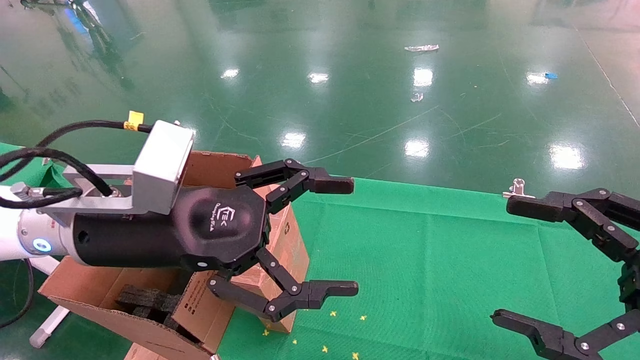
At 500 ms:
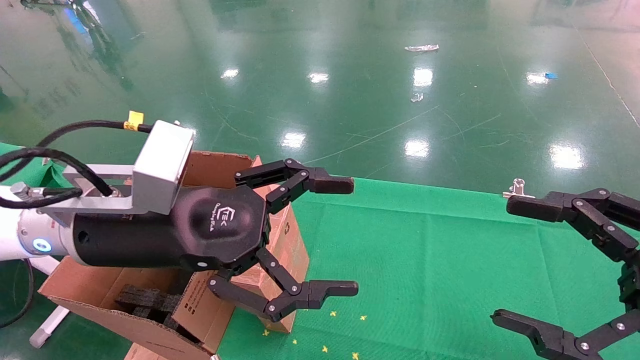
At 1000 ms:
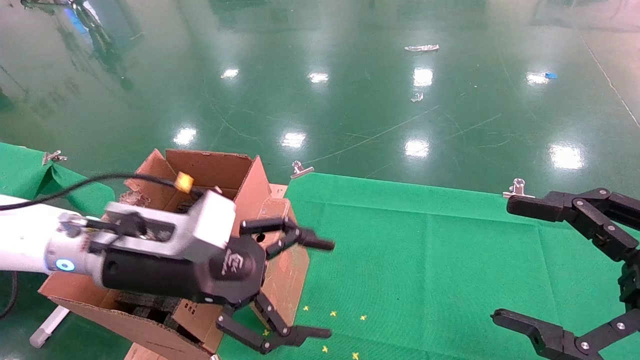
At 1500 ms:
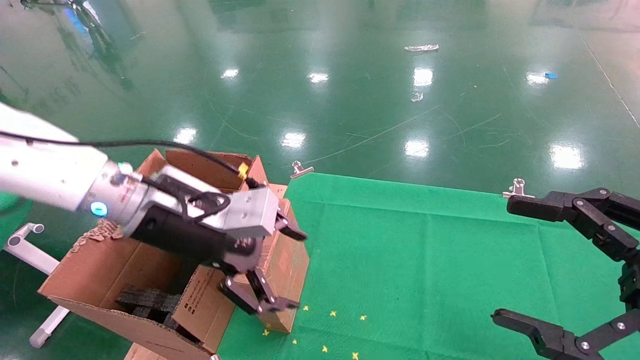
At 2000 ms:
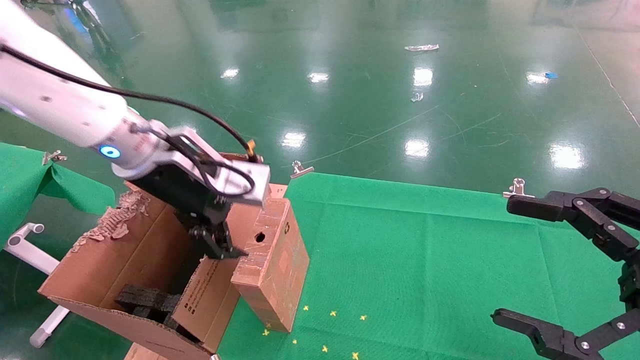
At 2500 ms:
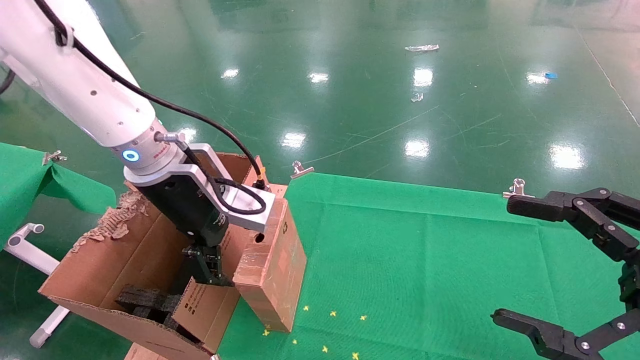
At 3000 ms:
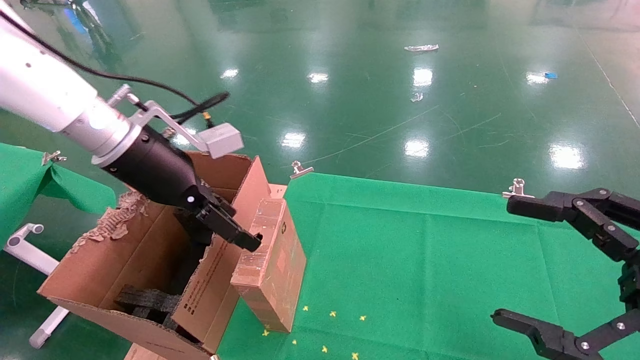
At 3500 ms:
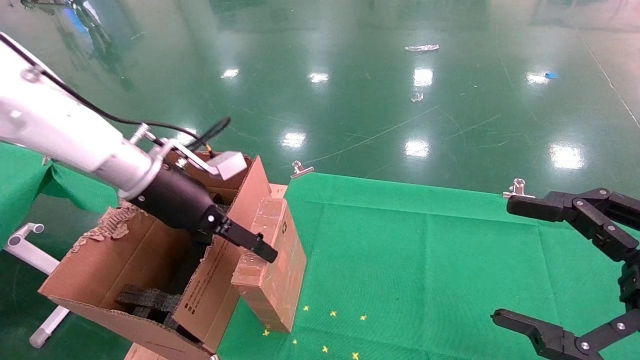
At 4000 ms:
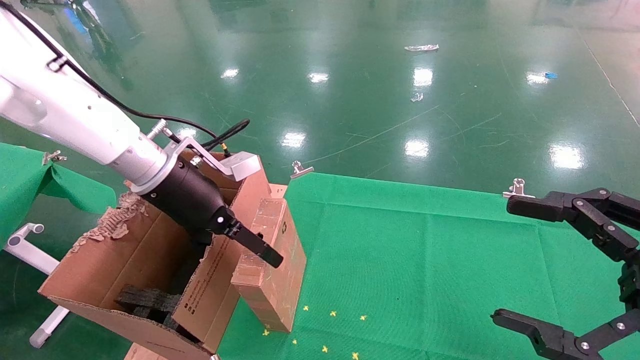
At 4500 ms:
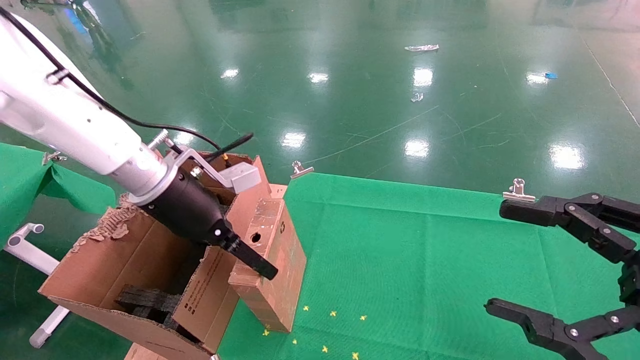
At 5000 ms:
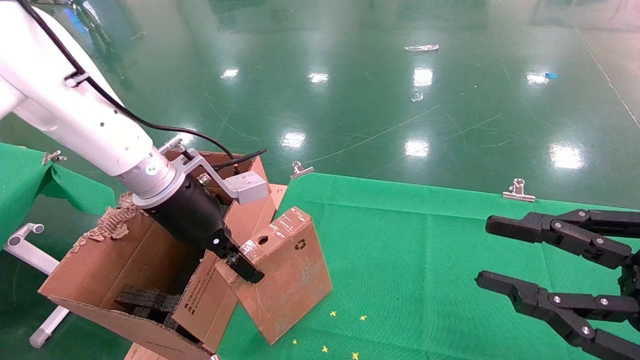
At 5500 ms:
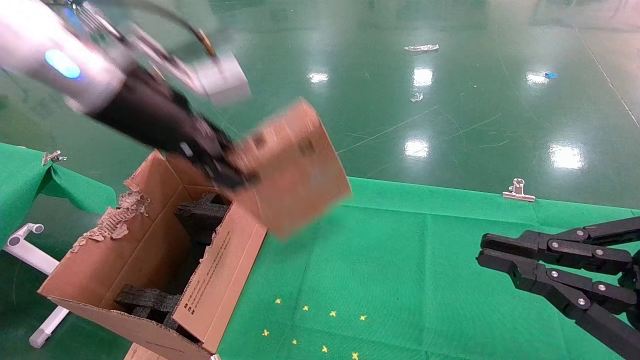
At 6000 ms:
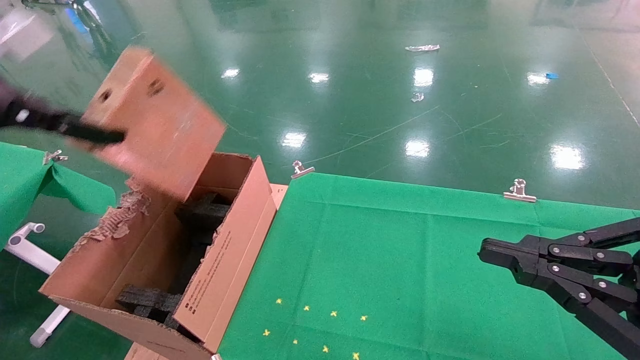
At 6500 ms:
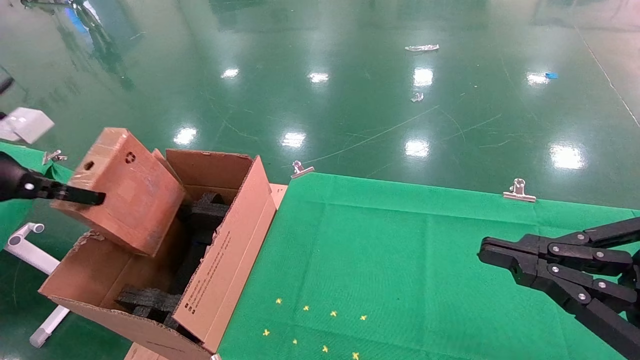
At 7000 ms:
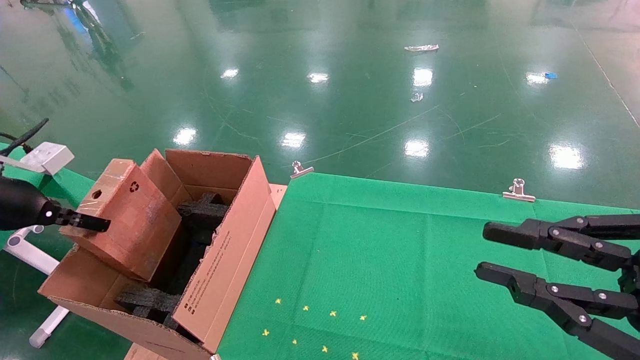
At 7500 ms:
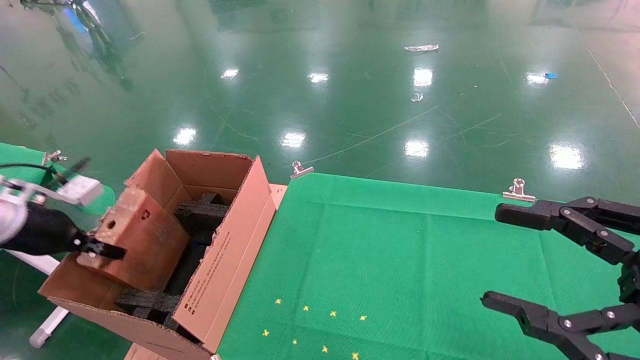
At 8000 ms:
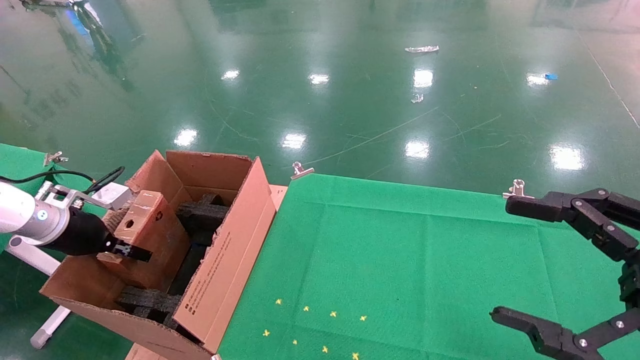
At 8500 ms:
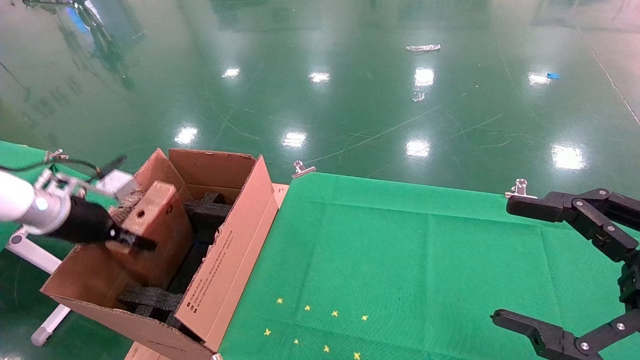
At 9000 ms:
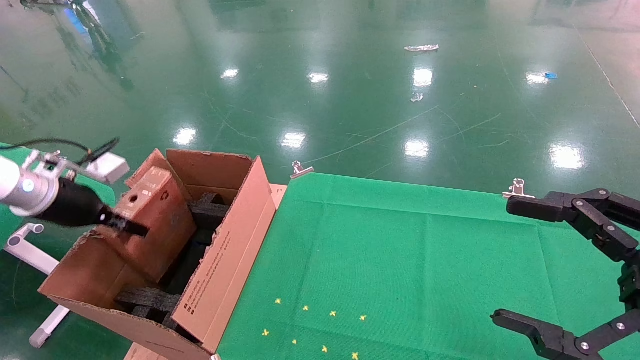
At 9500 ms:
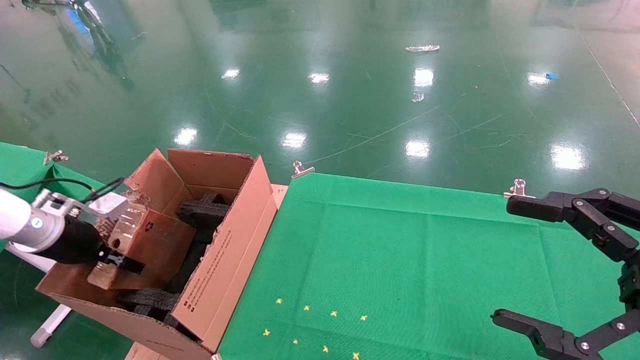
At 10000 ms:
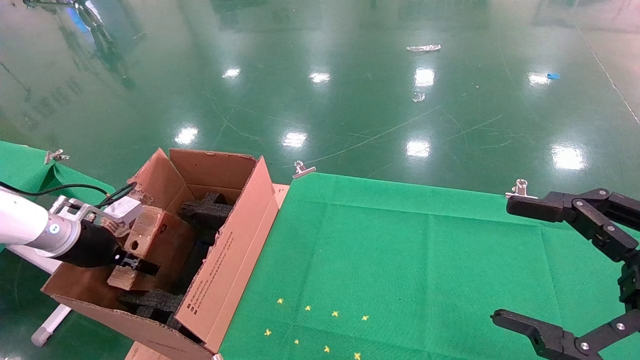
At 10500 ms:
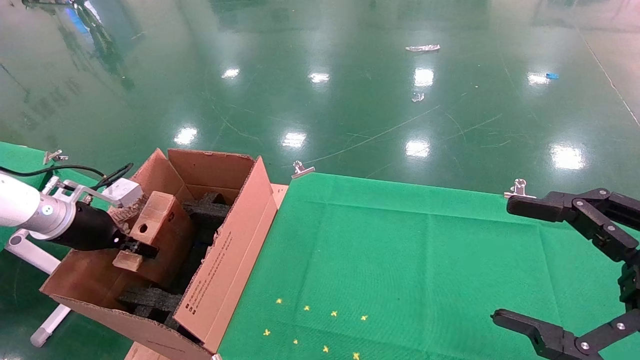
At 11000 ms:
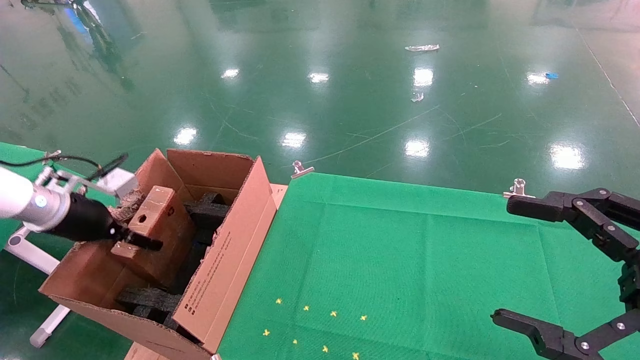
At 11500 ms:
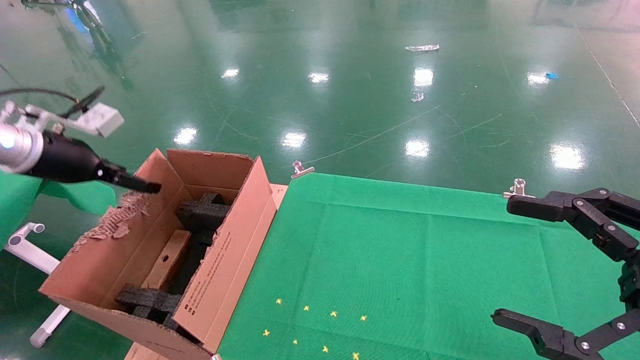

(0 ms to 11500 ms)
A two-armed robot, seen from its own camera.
Task of the whole recording: using a robotic arm to pick up a cardboard box and palace it the carton.
Step, 1000 ms - 5000 ms: Pick up the mouse and the power cord paper box.
0 ms - 2000 ms: The left gripper is displaced forward by about 10 cm.
2000 ms - 4000 ms: The left gripper shifts by approximately 5 cm.
4000 ms - 6000 ms: The right gripper closes up. Meanwhile the left gripper travels to the left, upward and backward by roughly 25 cm, and closes.
6000 ms - 7500 ms: The right gripper opens its fingers; the left gripper travels downward by about 20 cm.
7500 ms - 9500 ms: The left gripper shifts by some 5 cm. The right gripper opens its fingers.
9500 ms - 11500 ms: The left gripper heads upward, covering roughly 15 cm, and opens up.

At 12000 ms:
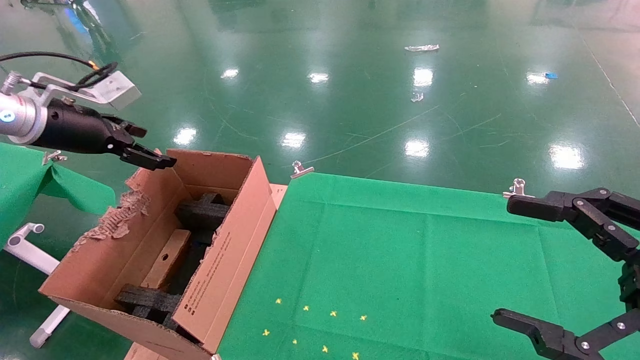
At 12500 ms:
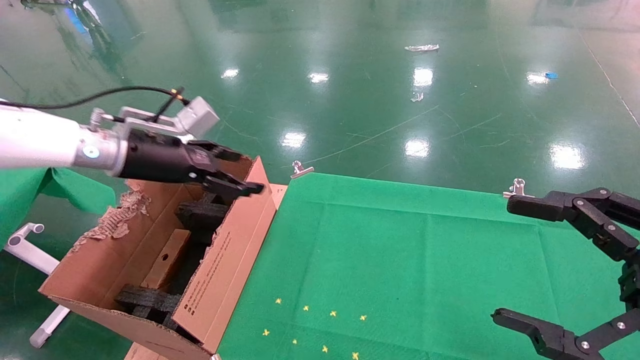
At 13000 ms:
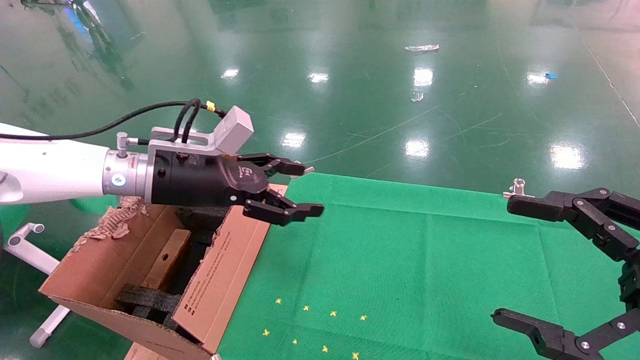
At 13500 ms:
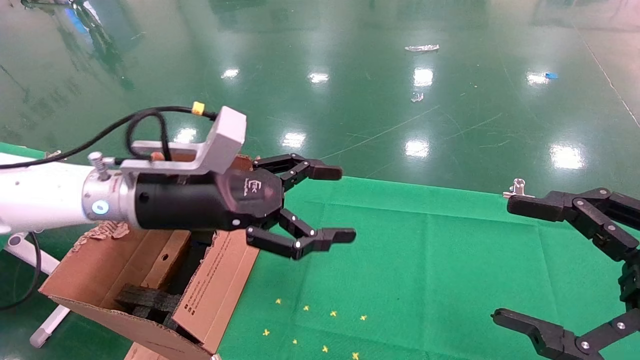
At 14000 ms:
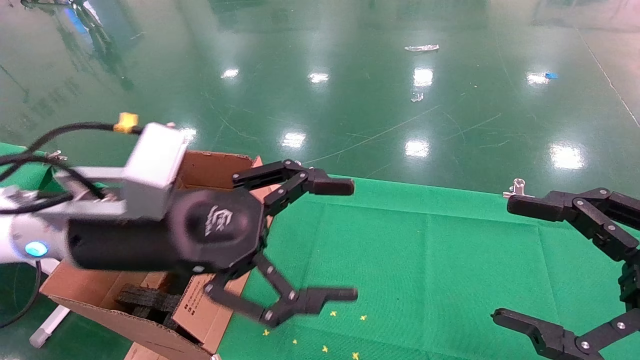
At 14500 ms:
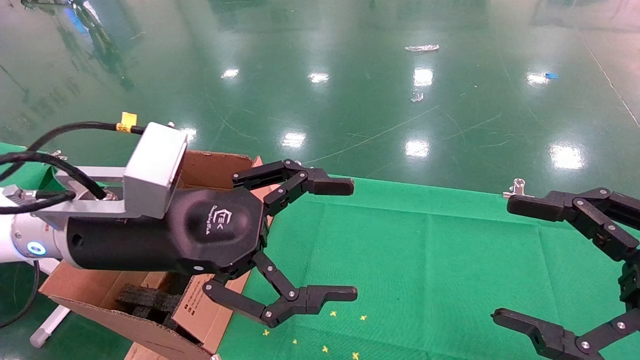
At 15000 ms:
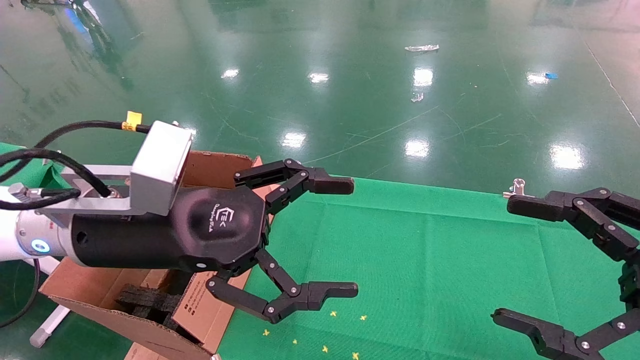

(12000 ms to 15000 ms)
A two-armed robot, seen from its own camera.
Task of the whole recording: using a robotic arm to pick up a cardboard box and palace it the carton.
12000 ms - 13500 ms: The left gripper shifts roughly 20 cm to the right.
13500 ms - 15000 ms: The left gripper is displaced backward by some 5 cm.

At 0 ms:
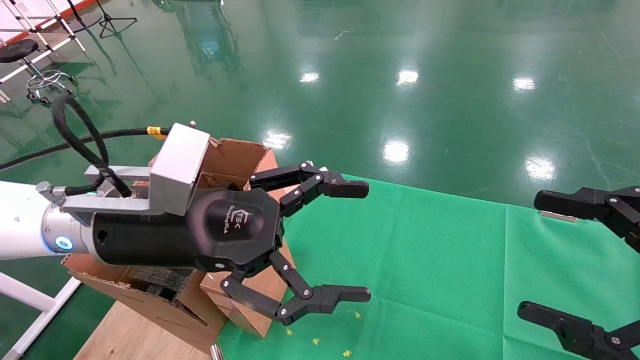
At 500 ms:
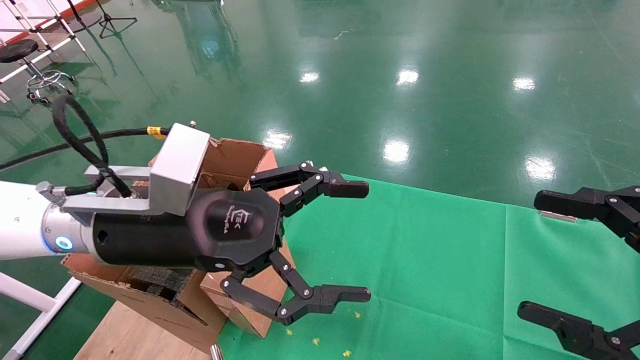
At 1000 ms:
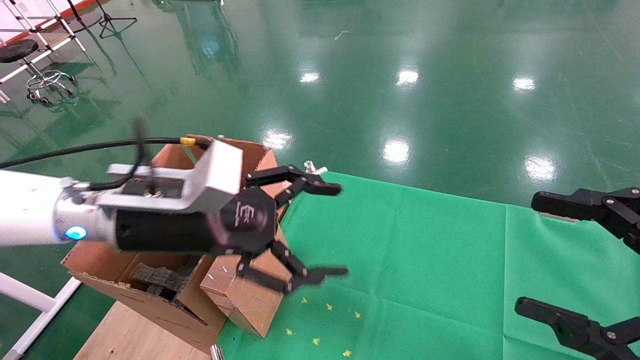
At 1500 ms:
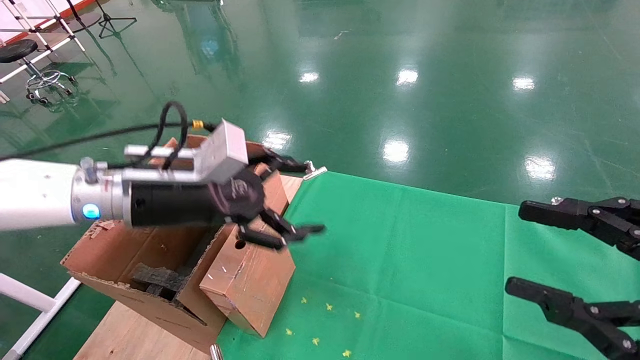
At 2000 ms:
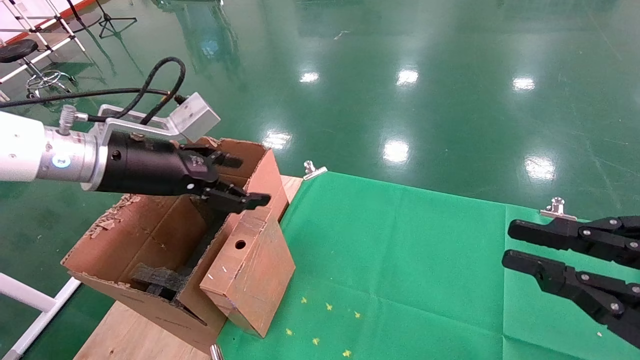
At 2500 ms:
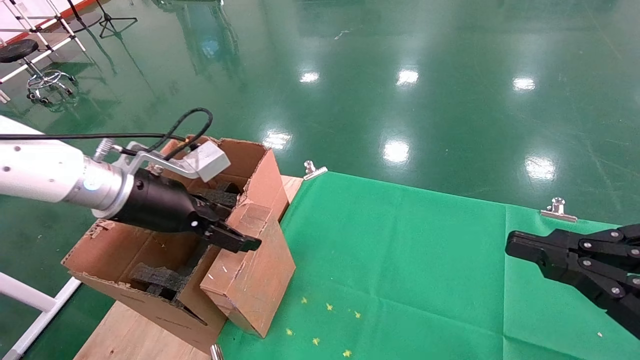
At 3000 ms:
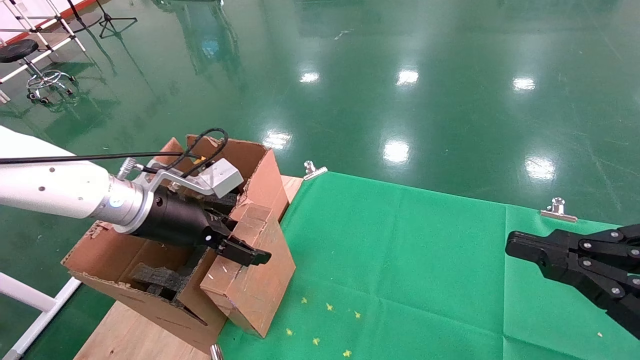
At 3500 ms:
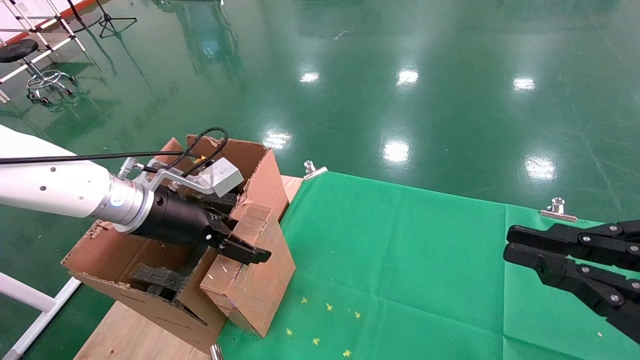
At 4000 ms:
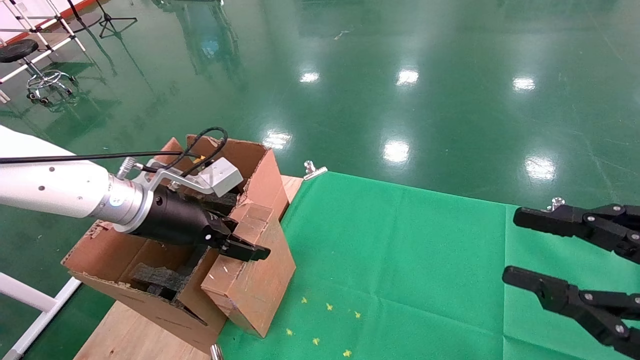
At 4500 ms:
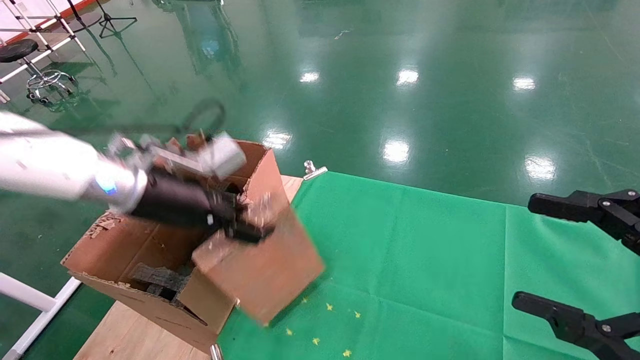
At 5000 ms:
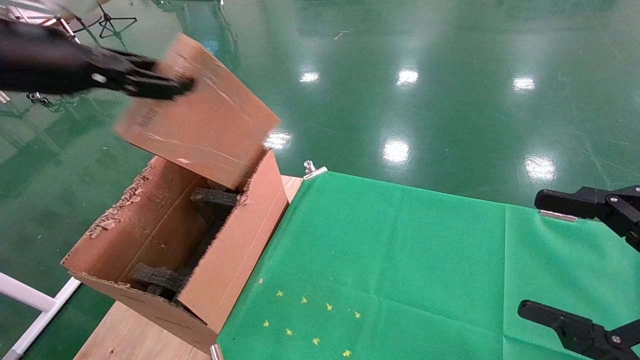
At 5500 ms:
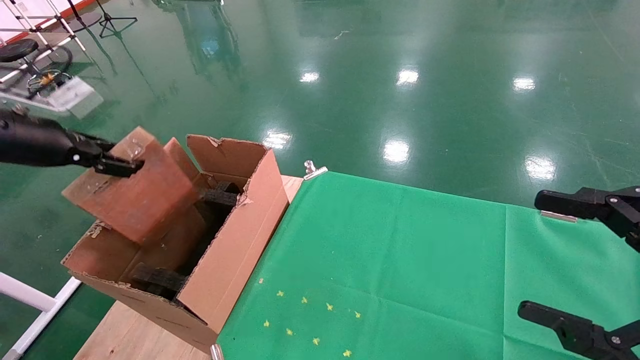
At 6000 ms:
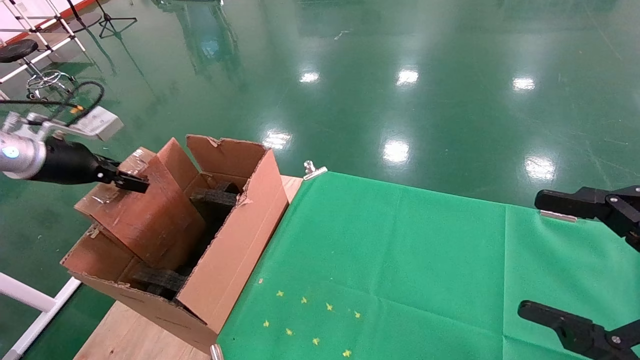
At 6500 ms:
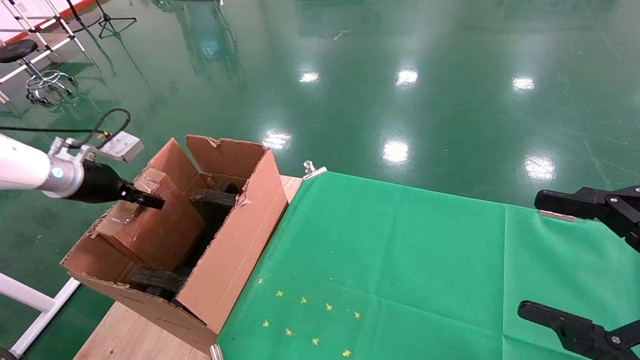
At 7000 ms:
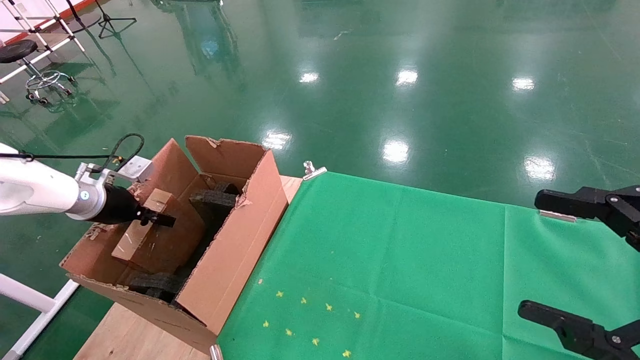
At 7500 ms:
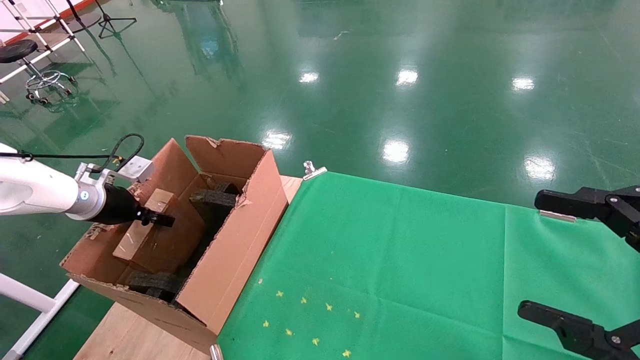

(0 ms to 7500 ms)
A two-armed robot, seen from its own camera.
Task of the whole recording: using a robotic arm to pick up a cardboard box and palace it the carton.
Step, 1000 ms - 4000 ms: Pick up the mouse and the power cord paper box.
0 ms - 2000 ms: The right gripper closes up, while the left gripper heads to the left and forward, covering some 10 cm.
2000 ms - 4000 ms: The left gripper moves downward, about 5 cm.
4000 ms - 5500 ms: The right gripper opens up, while the left gripper heads to the left and upward, covering roughly 20 cm, and closes.
5500 ms - 7500 ms: The left gripper shifts about 20 cm downward and forward.
